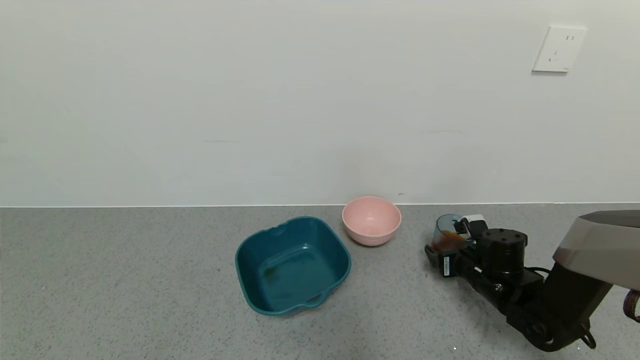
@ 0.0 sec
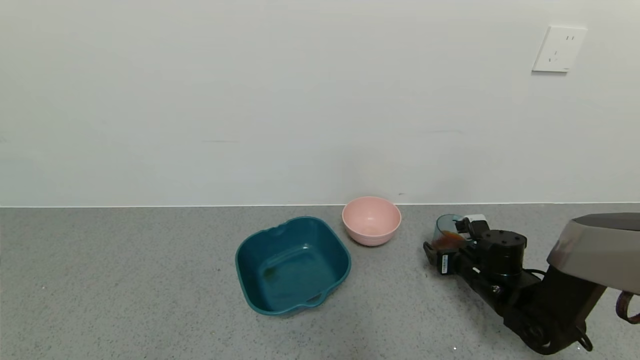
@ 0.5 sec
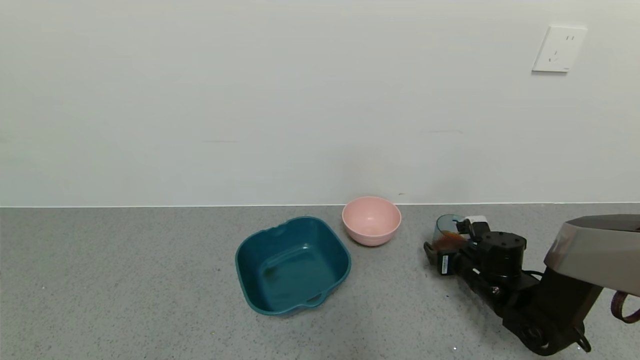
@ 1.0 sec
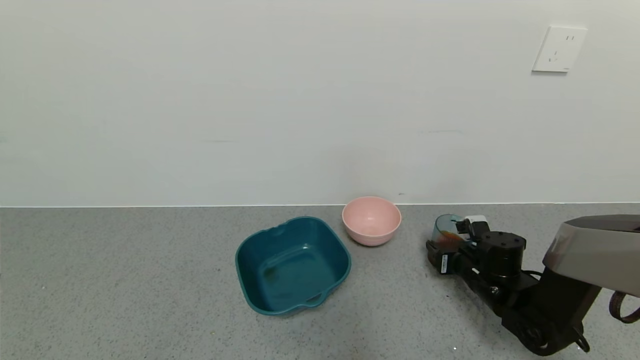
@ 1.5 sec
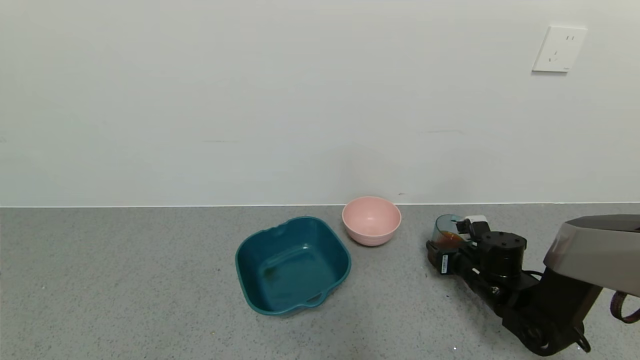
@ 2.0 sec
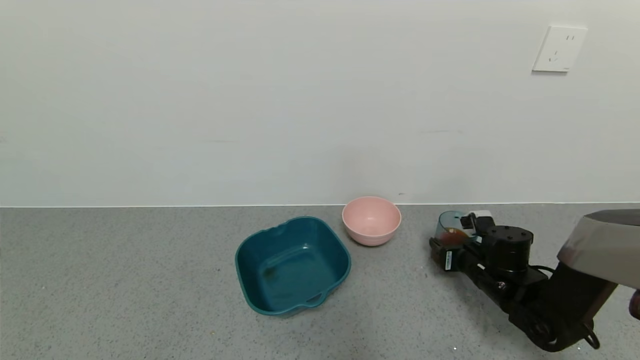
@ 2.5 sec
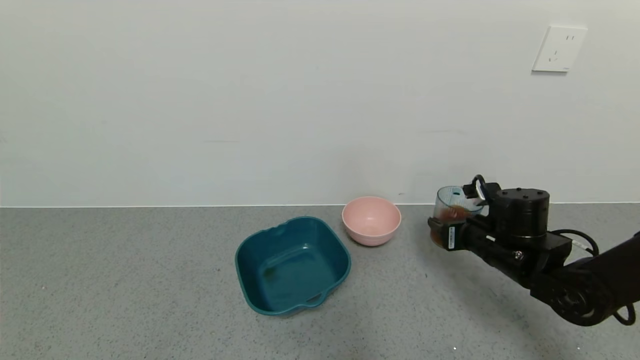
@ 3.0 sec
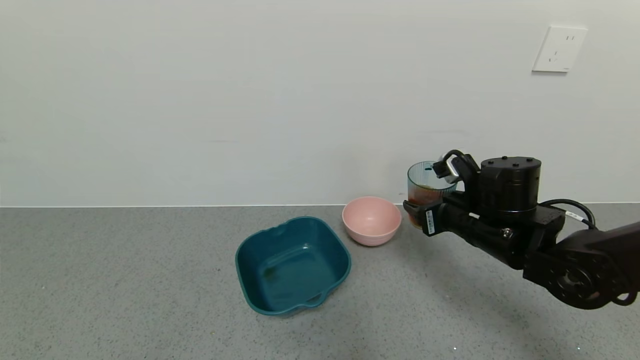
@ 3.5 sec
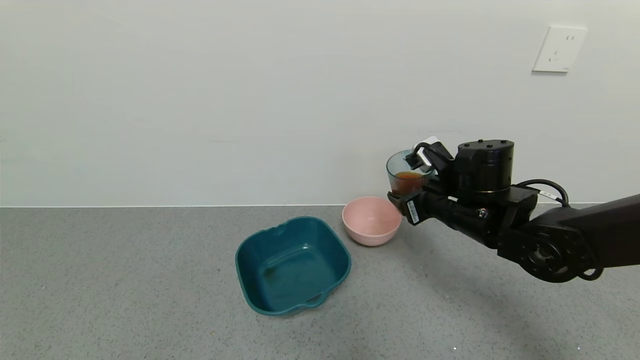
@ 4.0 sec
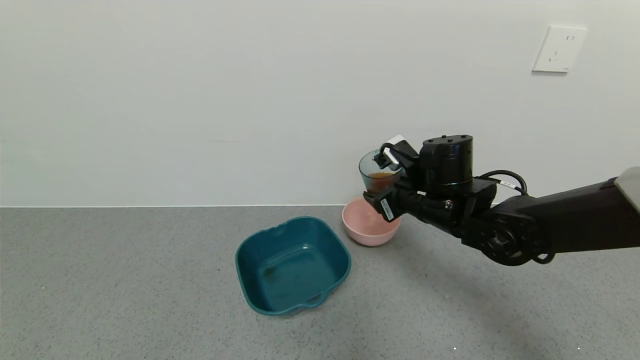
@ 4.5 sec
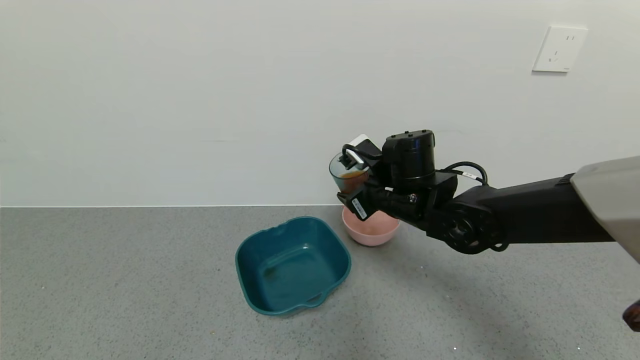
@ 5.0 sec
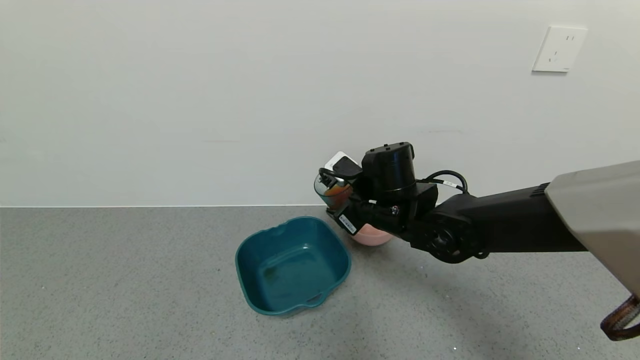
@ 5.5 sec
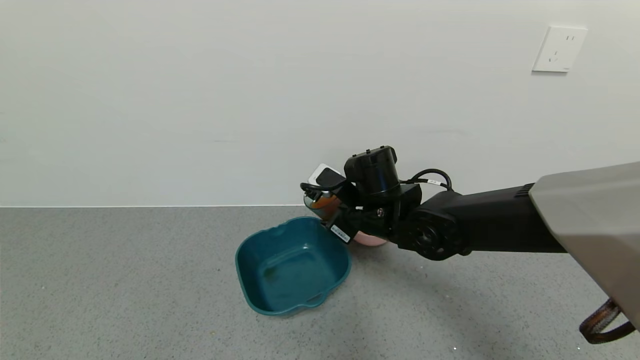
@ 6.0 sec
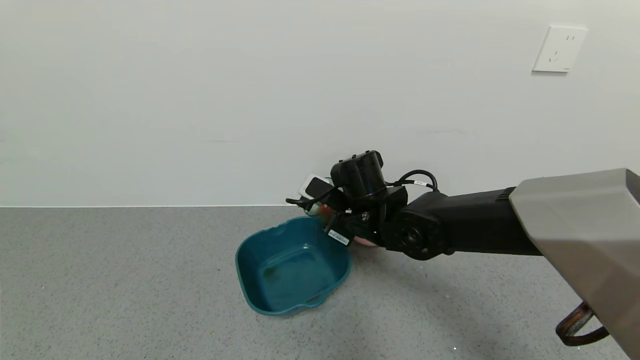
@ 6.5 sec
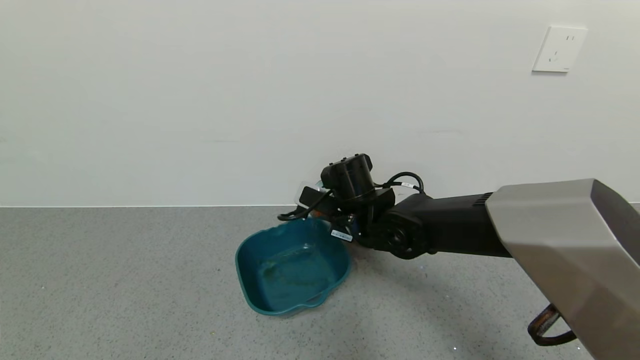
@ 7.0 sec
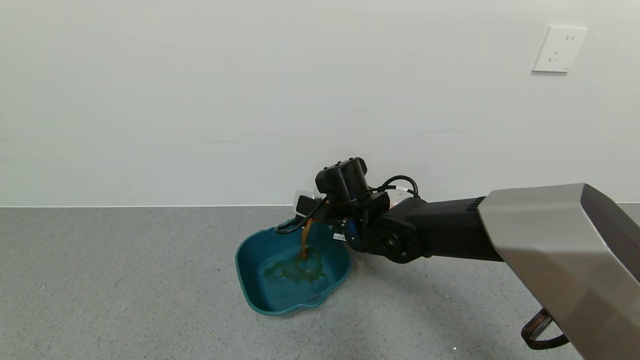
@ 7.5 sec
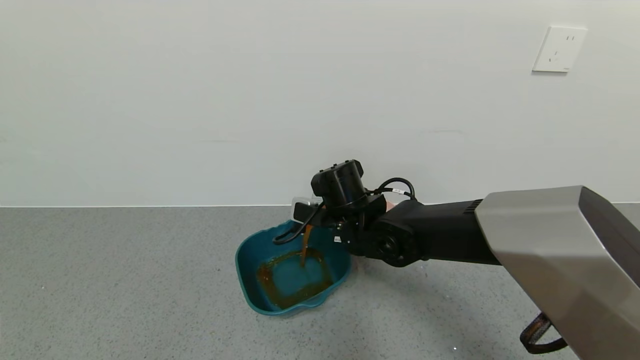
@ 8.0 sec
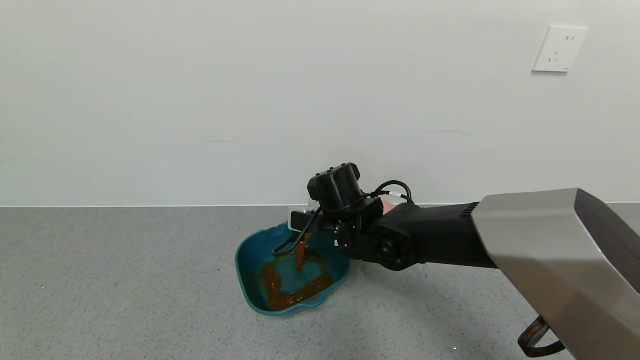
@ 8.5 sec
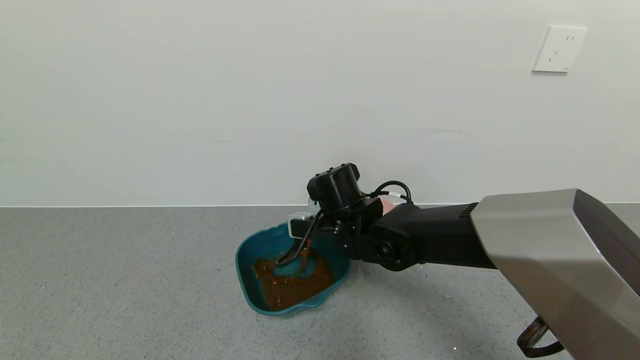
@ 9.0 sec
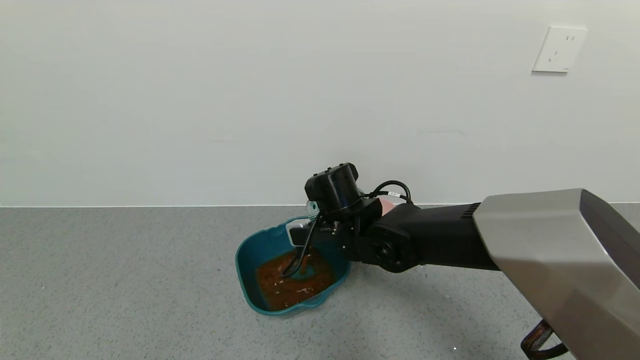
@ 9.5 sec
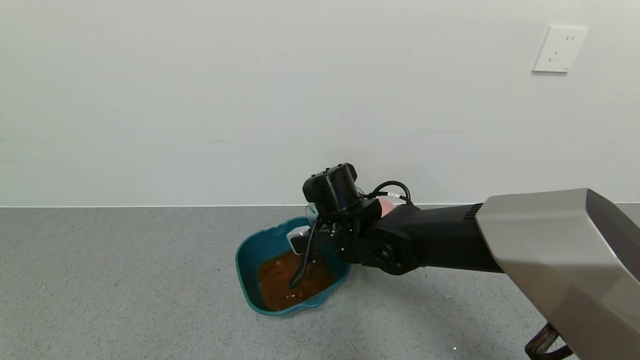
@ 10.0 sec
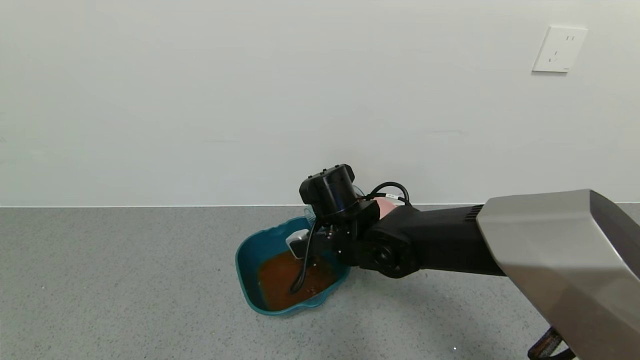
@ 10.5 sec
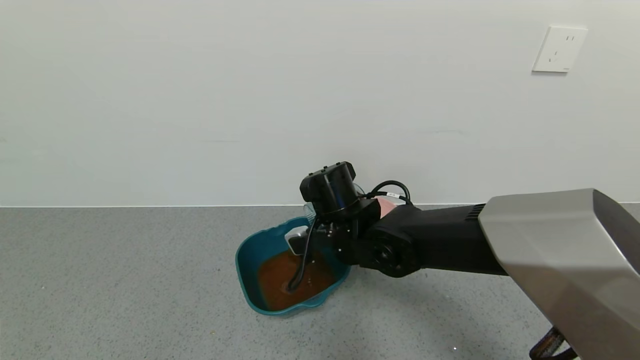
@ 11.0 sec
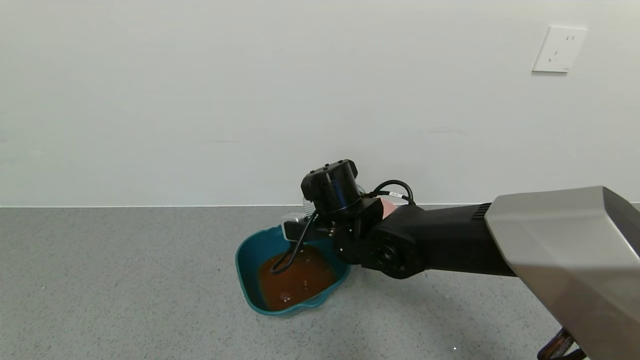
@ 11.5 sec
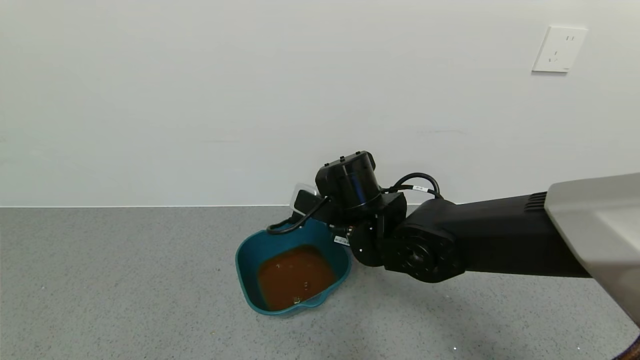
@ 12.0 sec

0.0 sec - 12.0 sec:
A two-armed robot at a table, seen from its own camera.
Task of the whole recording: use a gripper to pick up the cup and pour the liquid into a bowl or tray.
Step, 0.0 sec - 3.0 sec: Pick up blue cup filled with tea with right gripper.
0.0 sec - 2.0 sec: The right gripper closes.
2.0 sec - 4.0 sec: The right gripper goes roughly 20 cm upward and to the left.
4.0 sec - 6.0 sec: The right gripper moves to the left, some 10 cm.

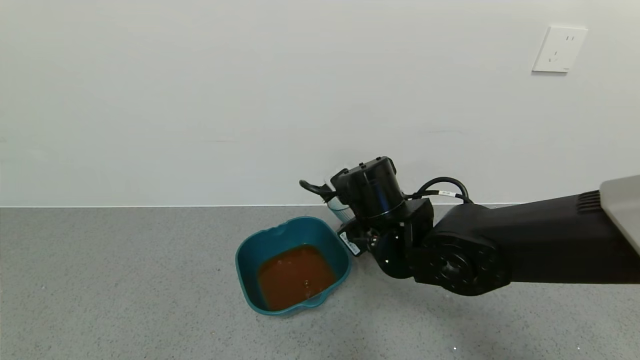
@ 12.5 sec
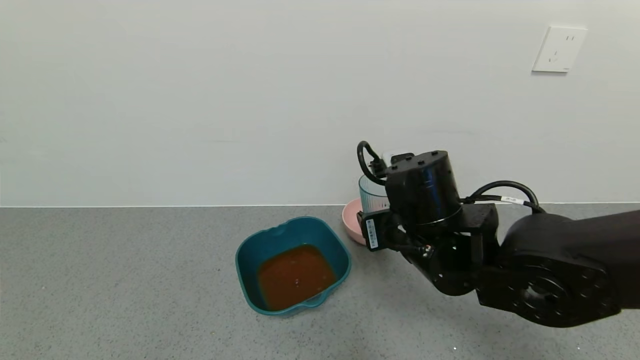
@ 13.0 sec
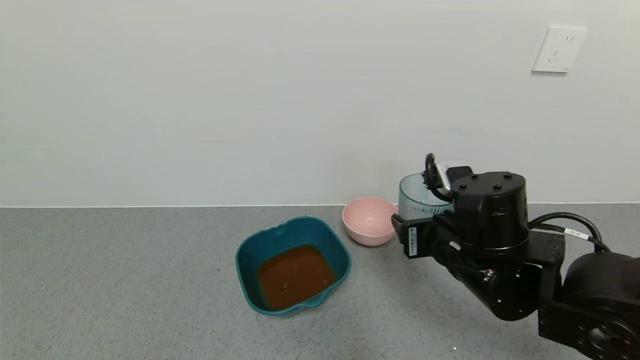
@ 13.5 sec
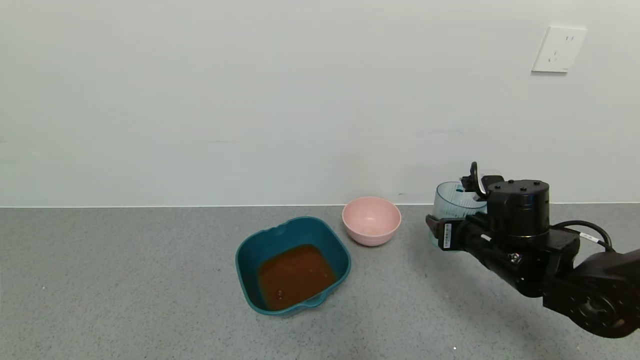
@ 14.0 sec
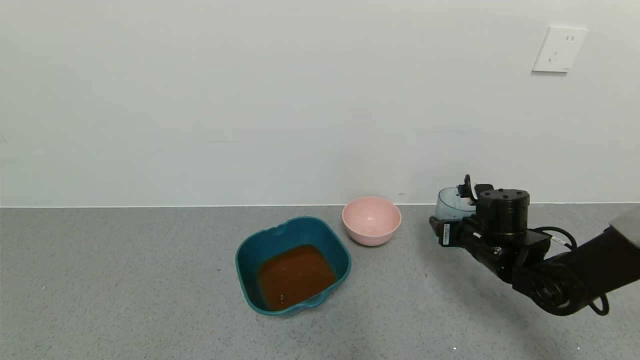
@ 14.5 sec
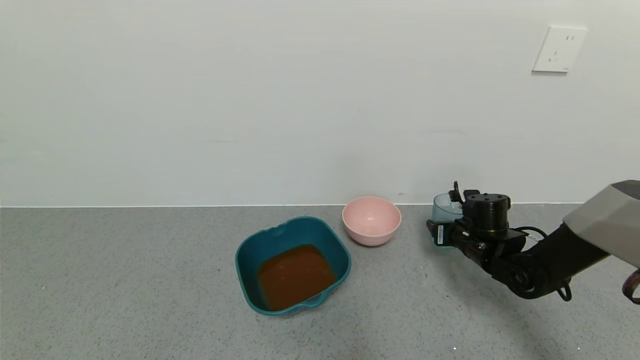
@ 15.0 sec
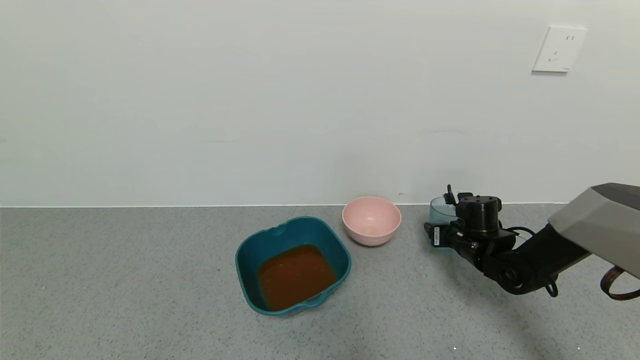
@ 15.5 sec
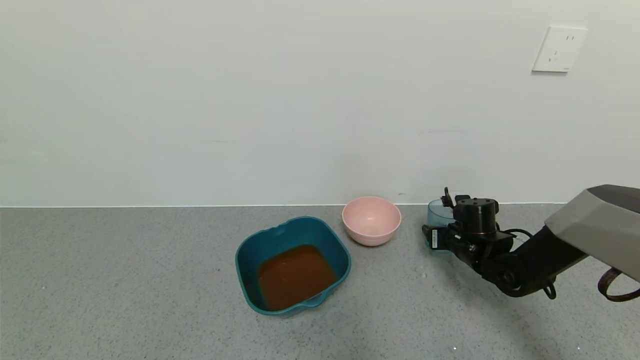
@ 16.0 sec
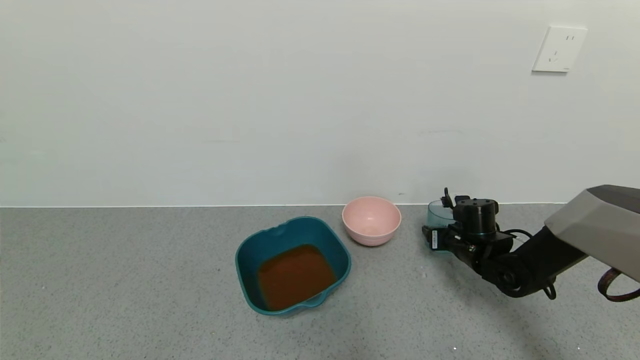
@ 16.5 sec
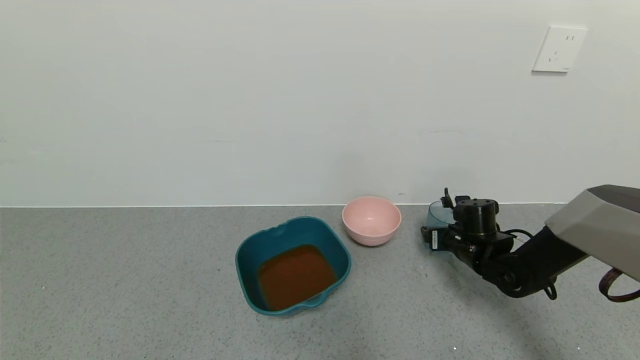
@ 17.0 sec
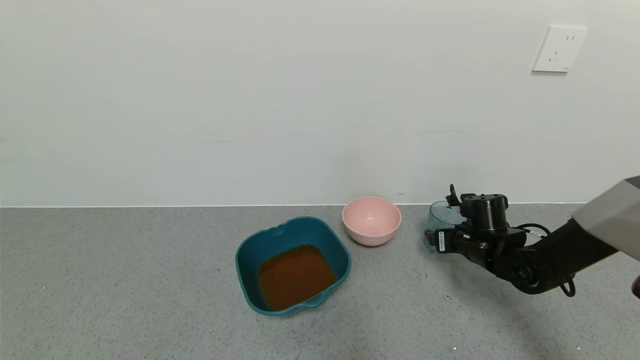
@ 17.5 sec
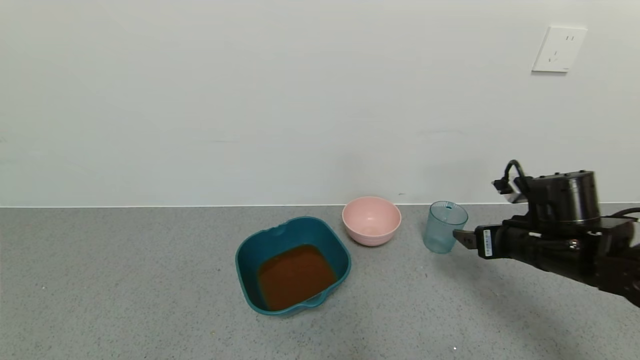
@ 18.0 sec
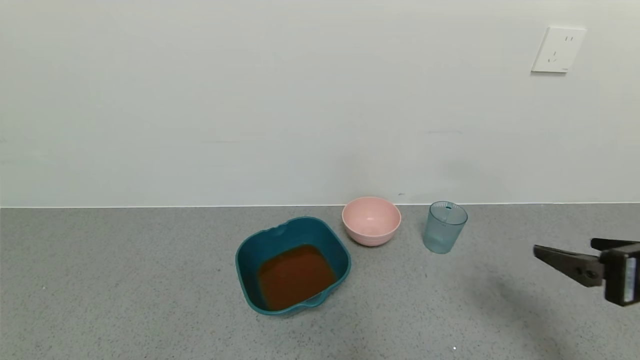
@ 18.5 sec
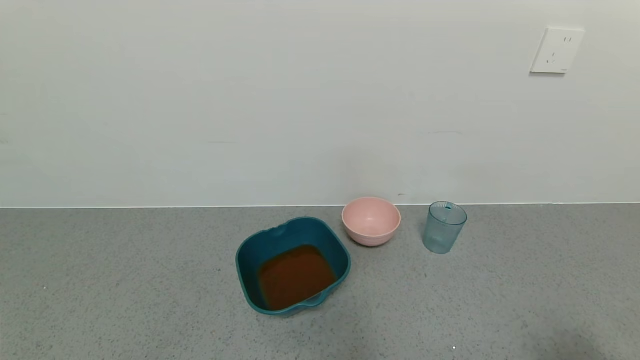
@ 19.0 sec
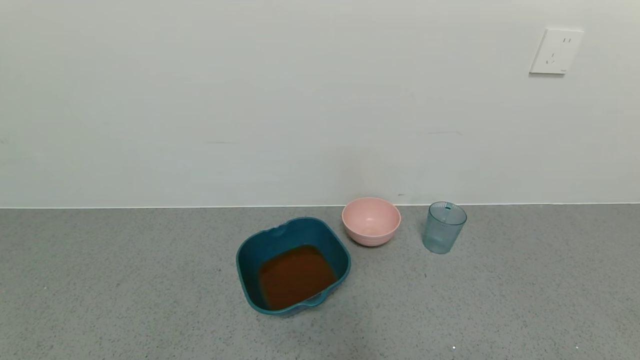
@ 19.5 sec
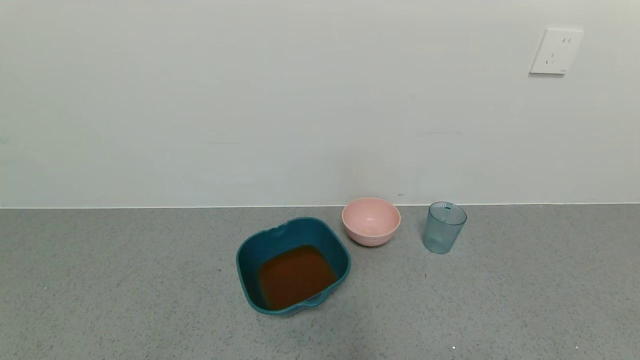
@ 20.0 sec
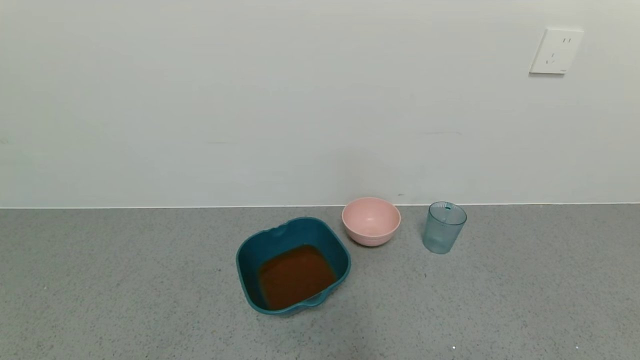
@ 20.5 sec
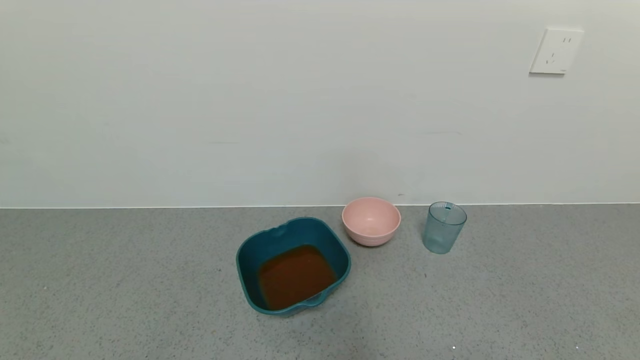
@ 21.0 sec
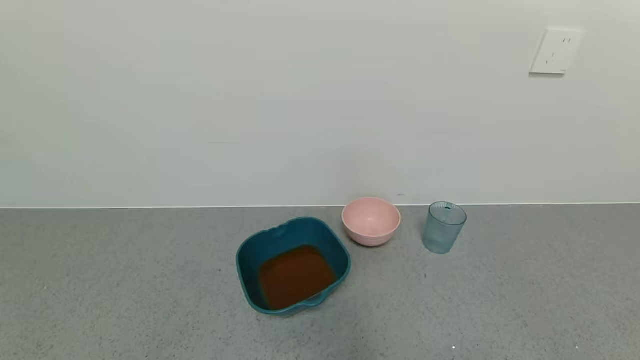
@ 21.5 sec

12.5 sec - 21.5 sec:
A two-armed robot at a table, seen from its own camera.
Task of the whole recording: use a gripper to pick up the cup and pour the liquid into a bowl or tray.
Step, 12.5 sec - 17.5 sec: Place blue cup with tea on the table with right gripper.
12.5 sec - 14.5 sec: The right gripper moves to the right and downward, some 20 cm.
14.5 sec - 17.0 sec: The right gripper shifts by roughly 5 cm, and opens.
17.0 sec - 19.5 sec: The right gripper is displaced backward by some 50 cm.
